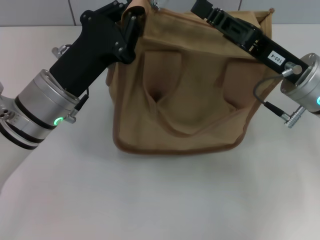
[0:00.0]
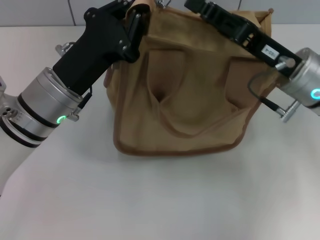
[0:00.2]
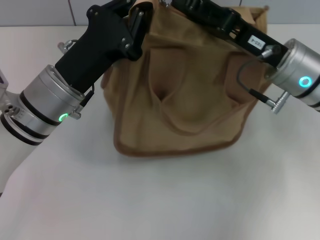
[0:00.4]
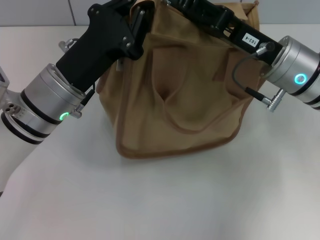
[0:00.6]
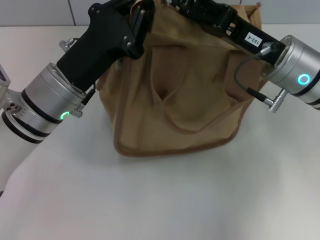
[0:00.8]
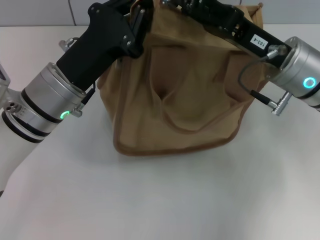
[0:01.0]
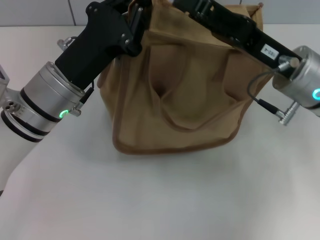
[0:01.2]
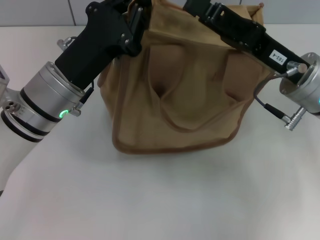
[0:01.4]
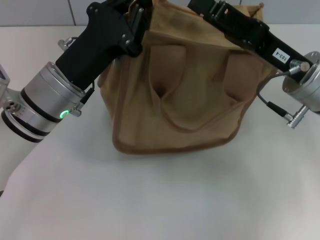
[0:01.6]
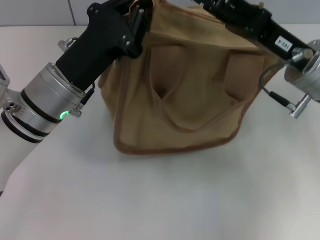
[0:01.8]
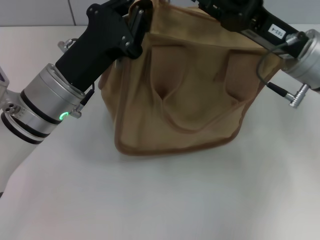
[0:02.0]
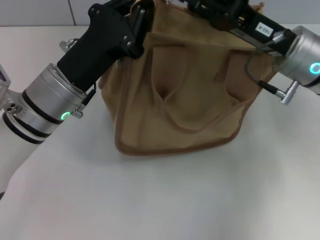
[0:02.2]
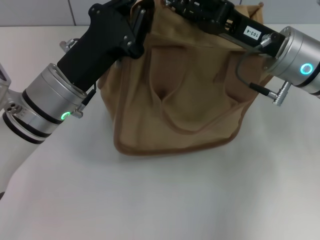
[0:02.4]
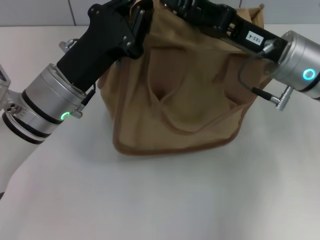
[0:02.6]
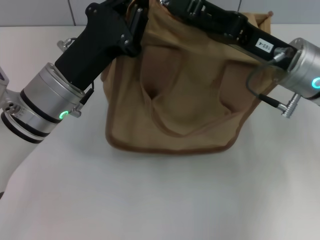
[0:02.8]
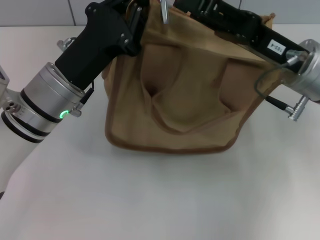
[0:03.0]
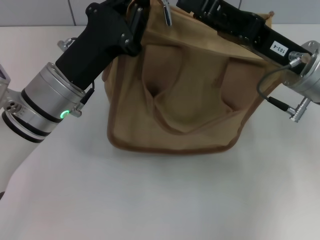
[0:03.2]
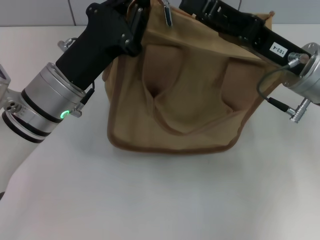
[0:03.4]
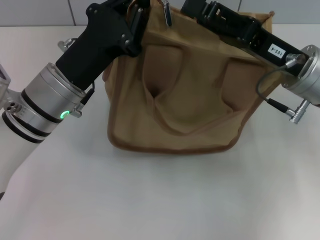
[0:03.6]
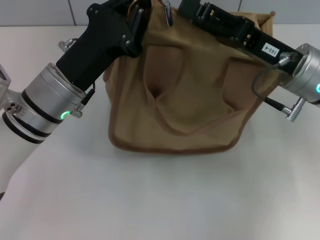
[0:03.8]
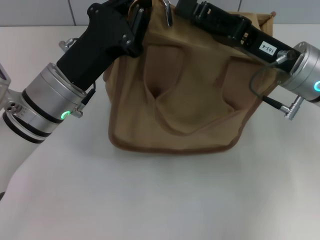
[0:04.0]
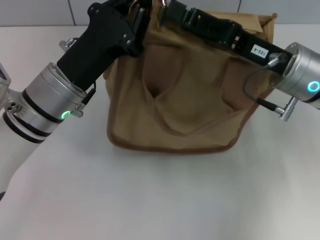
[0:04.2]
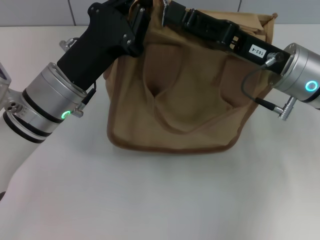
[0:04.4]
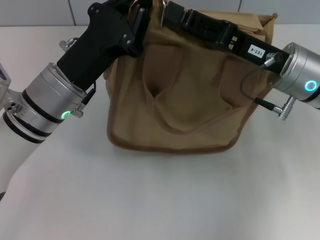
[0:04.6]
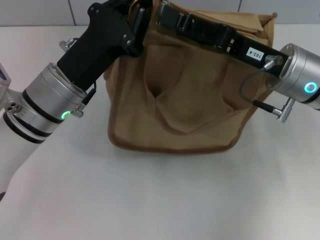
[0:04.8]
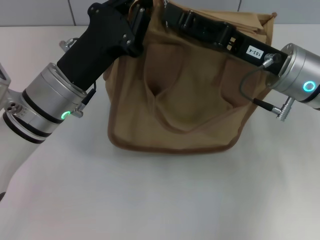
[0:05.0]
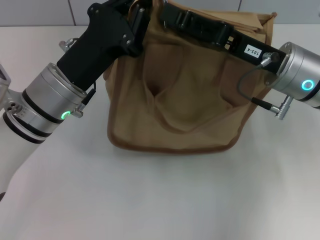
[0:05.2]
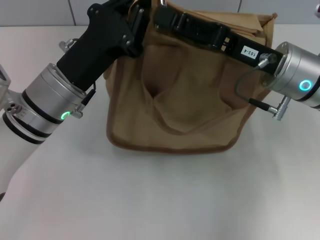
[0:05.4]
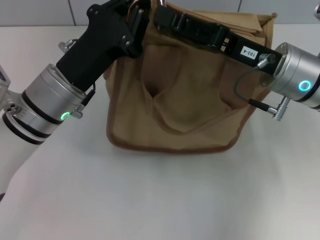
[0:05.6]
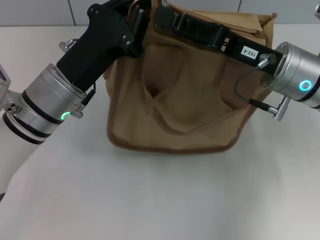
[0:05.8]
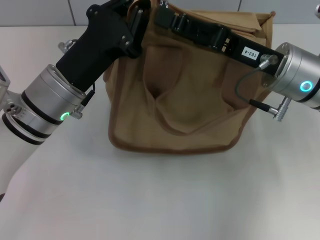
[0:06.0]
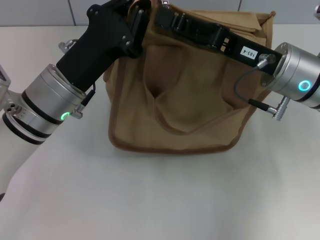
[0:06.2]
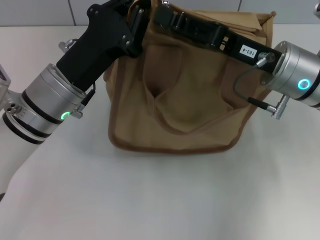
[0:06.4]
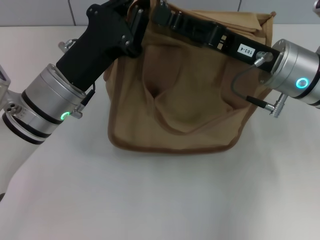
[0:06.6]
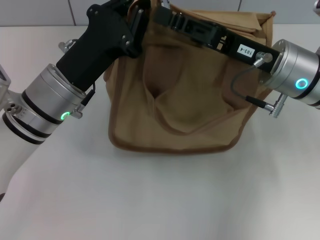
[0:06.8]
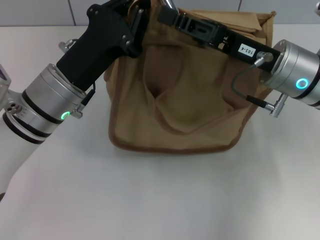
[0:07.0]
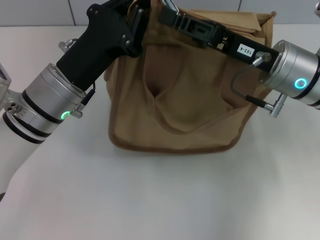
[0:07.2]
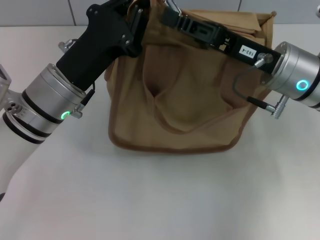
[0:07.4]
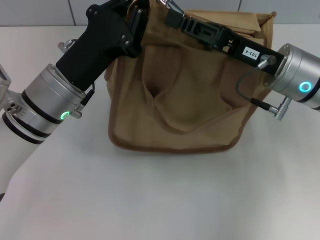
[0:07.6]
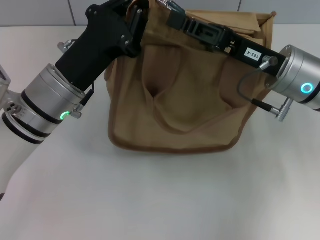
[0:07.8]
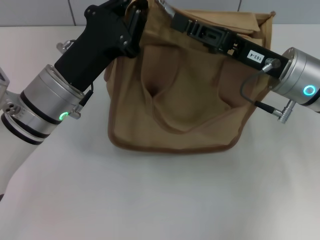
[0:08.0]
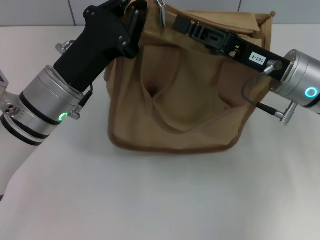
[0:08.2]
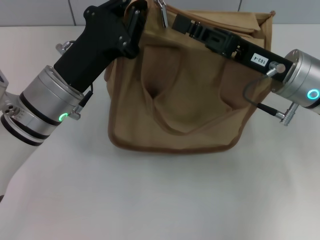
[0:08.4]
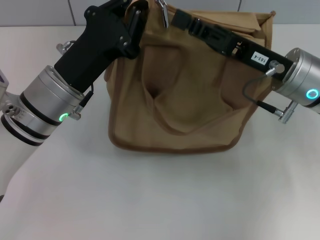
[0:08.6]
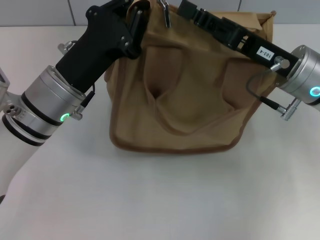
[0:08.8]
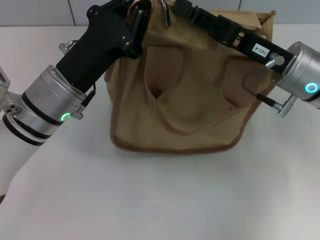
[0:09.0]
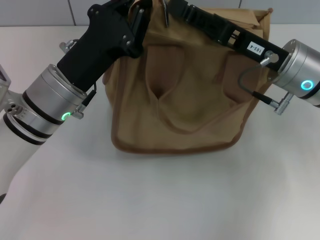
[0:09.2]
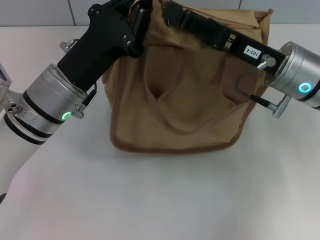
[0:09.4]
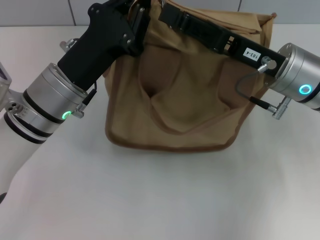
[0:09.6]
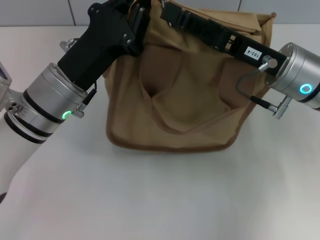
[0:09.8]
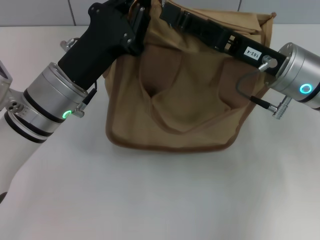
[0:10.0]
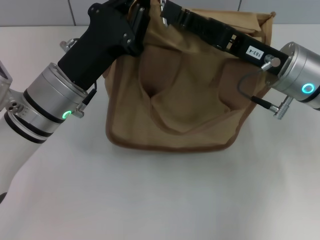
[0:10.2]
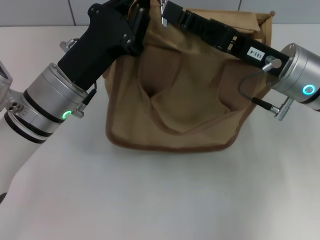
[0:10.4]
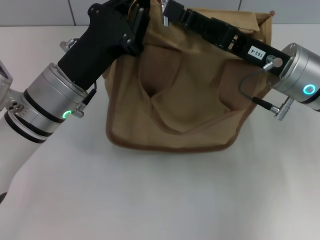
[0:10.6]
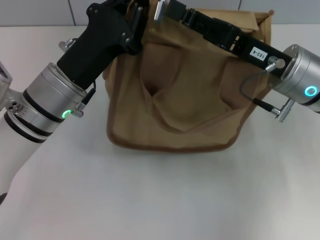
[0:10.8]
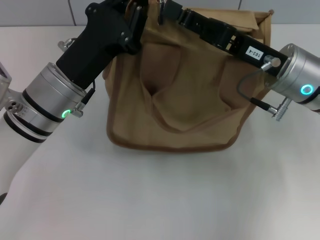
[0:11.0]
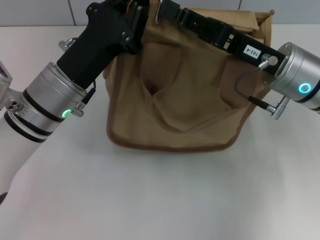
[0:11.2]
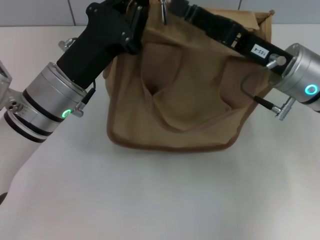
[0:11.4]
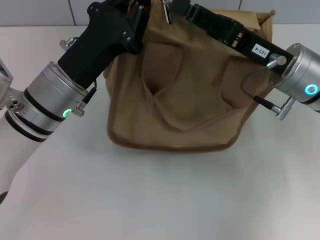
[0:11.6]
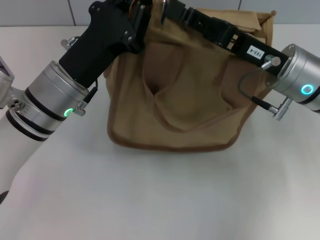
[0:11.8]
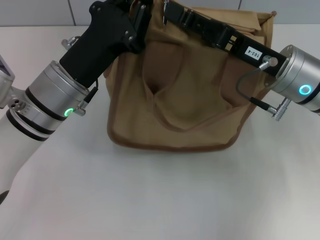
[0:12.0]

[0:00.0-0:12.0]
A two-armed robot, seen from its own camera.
0:00.0 to 0:01.6: The right gripper opens its fingers.
0:01.6 to 0:04.4: The grippers move only a little.
0:04.4 to 0:06.0: Neither gripper changes place.
0:06.0 to 0:07.6: The right gripper closes up.
0:07.6 to 0:09.0: The right gripper opens its fingers.
0:09.0 to 0:10.4: Both grippers stay put.
0:10.4 to 0:12.0: Both grippers stay put.

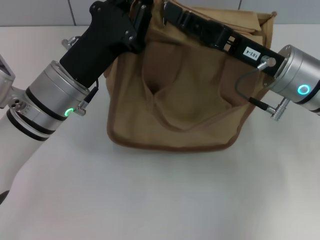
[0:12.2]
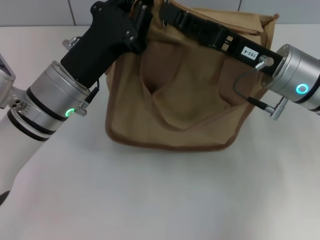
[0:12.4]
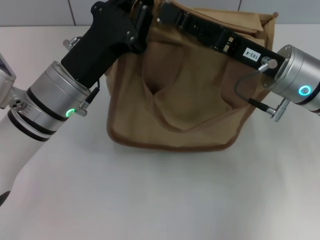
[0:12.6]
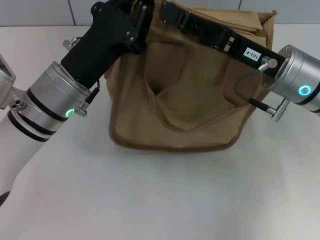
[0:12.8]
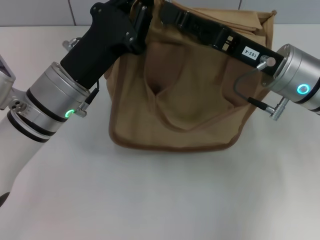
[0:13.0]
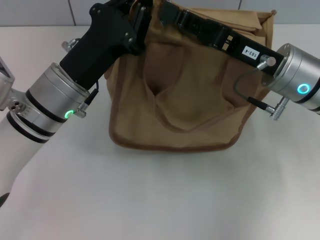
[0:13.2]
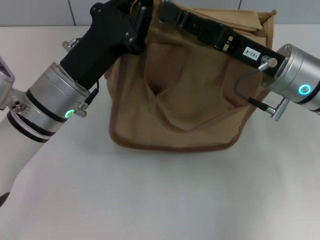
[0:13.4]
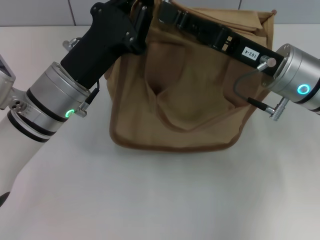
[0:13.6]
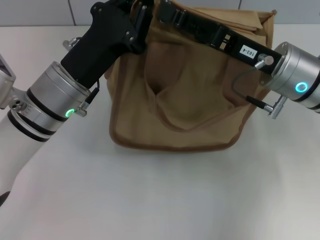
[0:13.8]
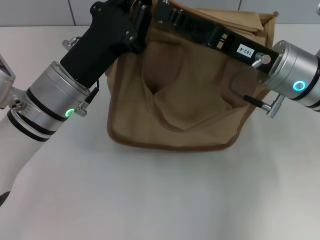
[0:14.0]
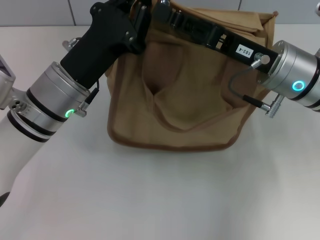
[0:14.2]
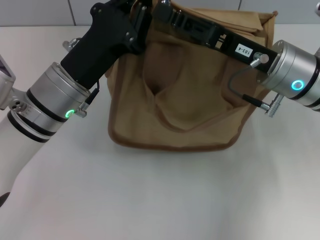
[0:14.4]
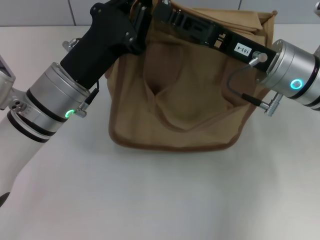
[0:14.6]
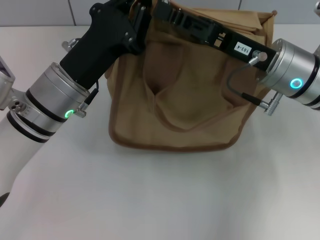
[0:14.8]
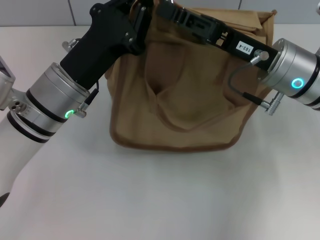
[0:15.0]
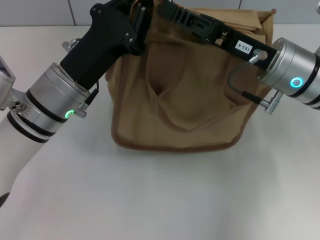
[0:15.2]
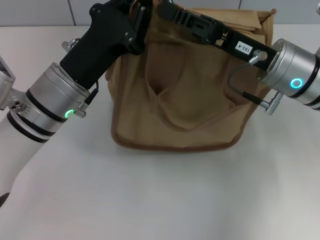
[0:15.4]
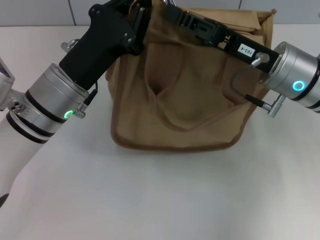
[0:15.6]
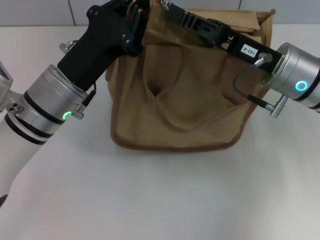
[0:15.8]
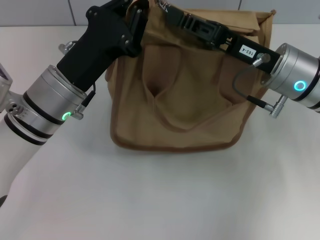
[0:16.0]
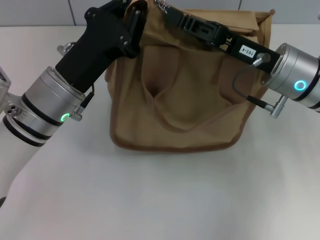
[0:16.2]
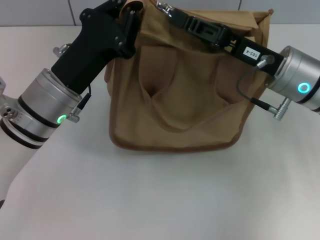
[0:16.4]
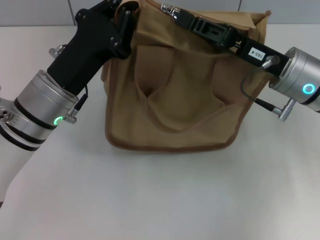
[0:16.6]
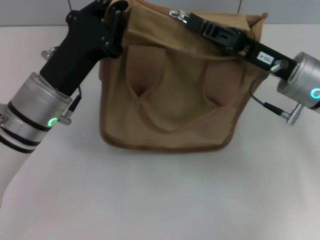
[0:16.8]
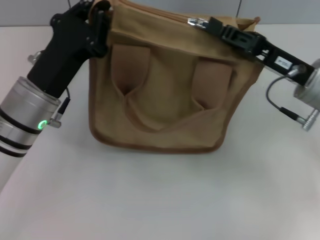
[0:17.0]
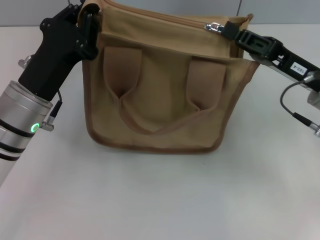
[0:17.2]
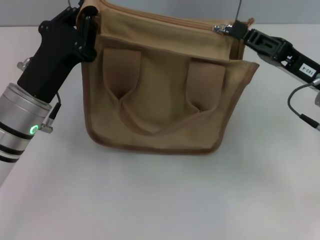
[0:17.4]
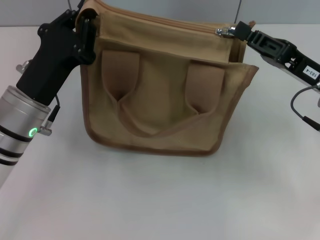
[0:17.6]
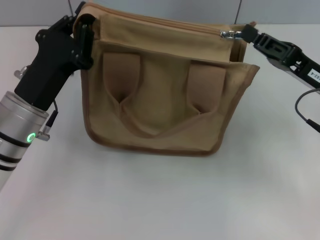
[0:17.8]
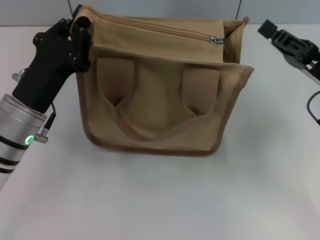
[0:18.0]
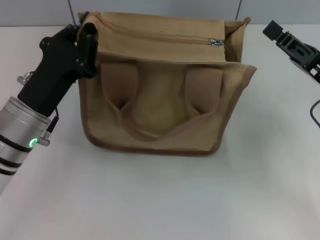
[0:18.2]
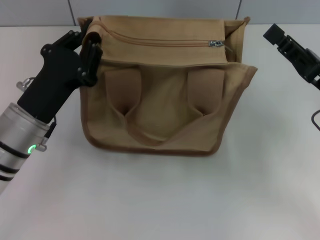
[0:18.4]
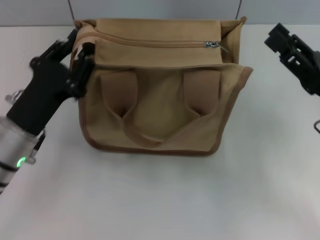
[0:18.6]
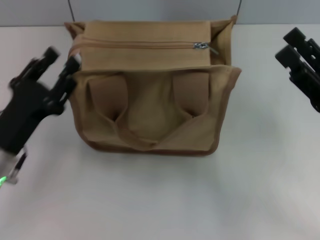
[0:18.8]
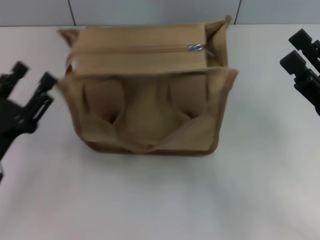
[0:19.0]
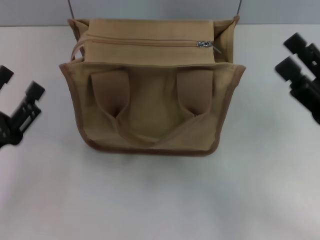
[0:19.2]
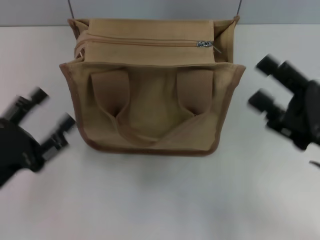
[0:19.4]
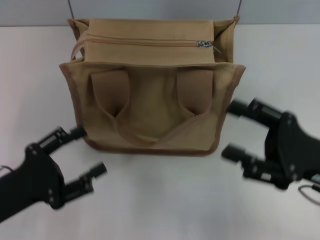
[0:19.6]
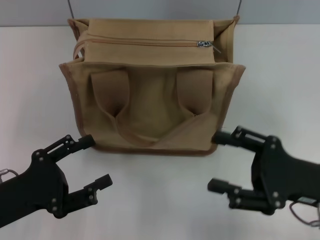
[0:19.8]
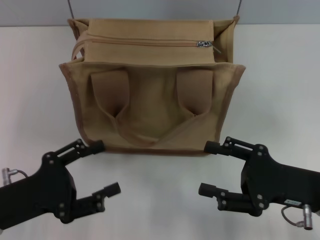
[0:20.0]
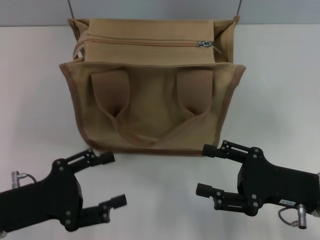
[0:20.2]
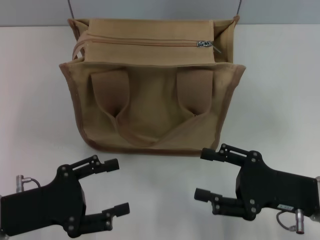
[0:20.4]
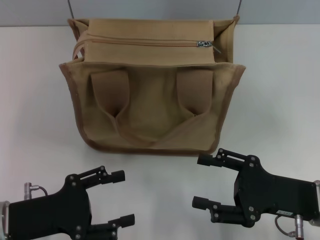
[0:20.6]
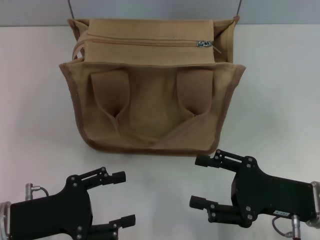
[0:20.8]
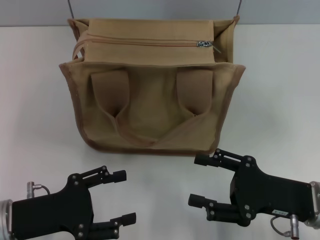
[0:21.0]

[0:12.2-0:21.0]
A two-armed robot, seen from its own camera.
Step, 0:12.2 to 0:17.8: Pull up the zipper with your right hand.
Step, 0:18.0 to 0:18.8: Grab the zipper with your left hand.
0:12.2 to 0:13.6: Both grippers stay put.
0:13.6 to 0:15.2: The right gripper closes its fingers.
0:15.2 to 0:16.6: The grippers make only small movements.
0:16.6 to 0:18.0: The right gripper goes approximately 10 cm to the right.
0:18.0 to 0:19.6: The right gripper heads backward, covering some 5 cm, and opens up; the left gripper moves backward and to the left, some 10 cm, and opens up.

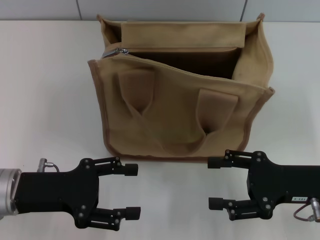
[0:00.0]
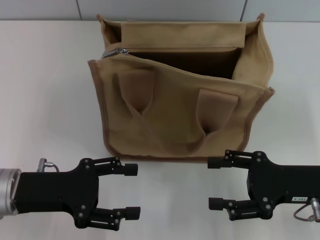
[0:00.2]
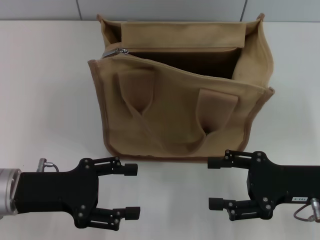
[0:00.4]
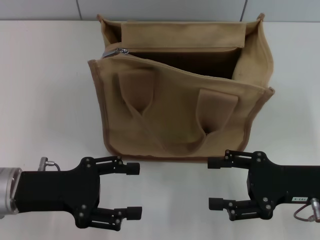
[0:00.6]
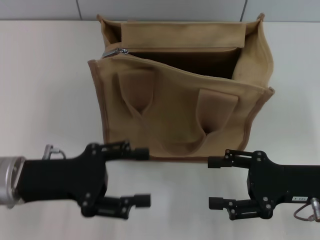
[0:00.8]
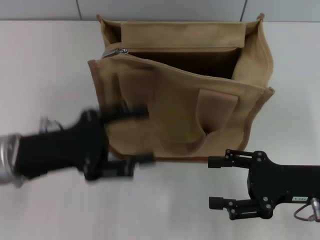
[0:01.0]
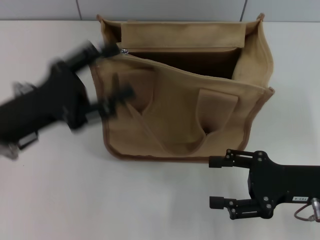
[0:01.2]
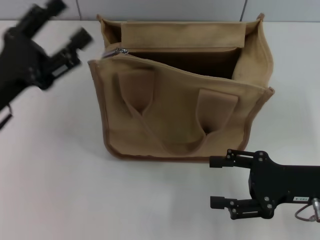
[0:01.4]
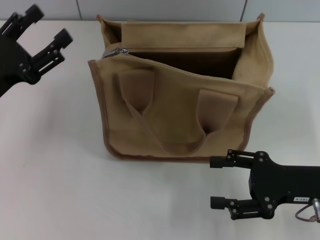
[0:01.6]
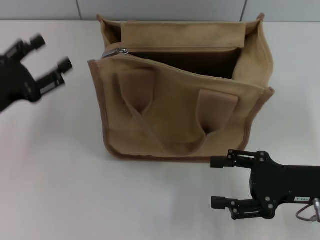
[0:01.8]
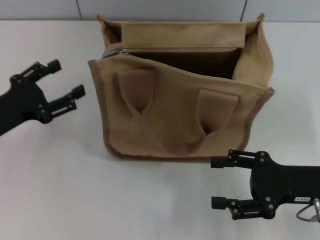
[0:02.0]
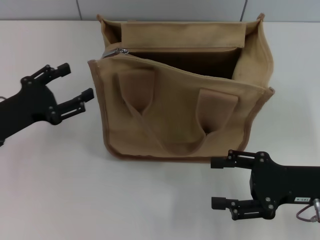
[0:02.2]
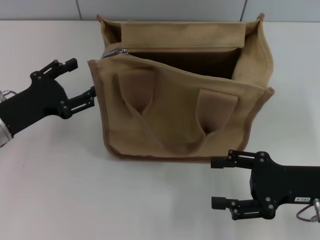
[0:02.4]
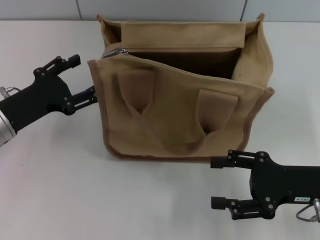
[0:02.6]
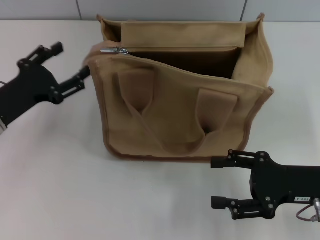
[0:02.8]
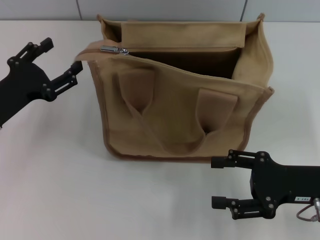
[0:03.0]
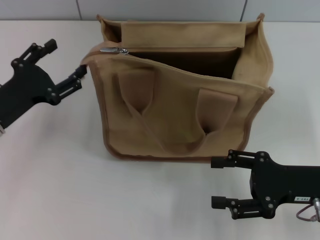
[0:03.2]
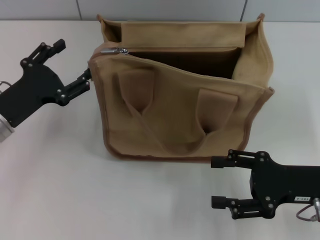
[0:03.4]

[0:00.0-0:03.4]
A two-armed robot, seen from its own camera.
0:00.0 to 0:01.6: The left gripper ends up some 5 cm from where it was.
